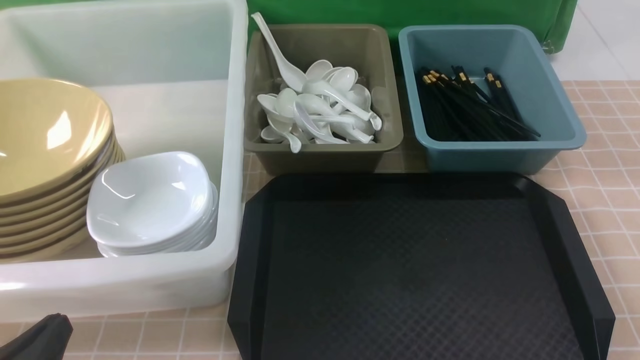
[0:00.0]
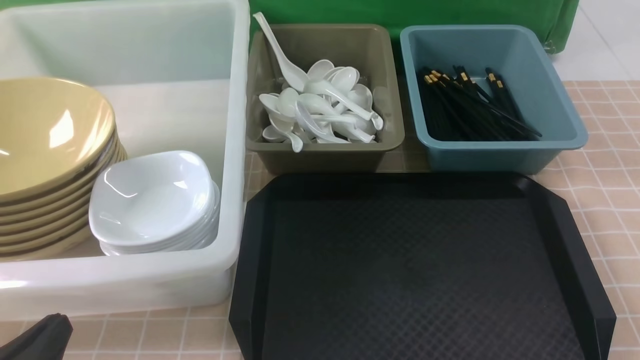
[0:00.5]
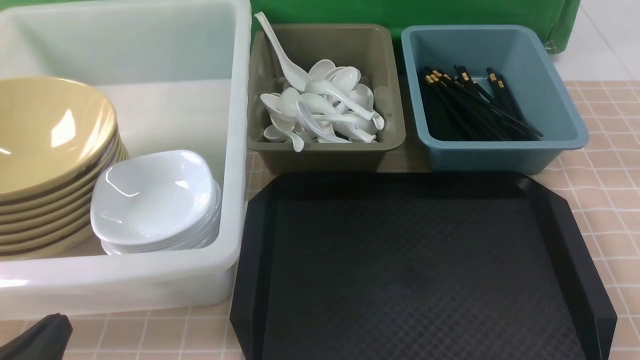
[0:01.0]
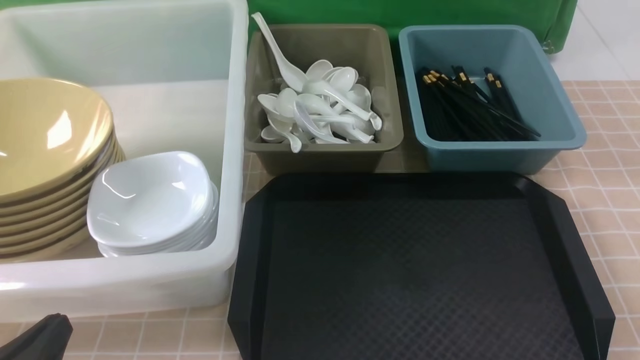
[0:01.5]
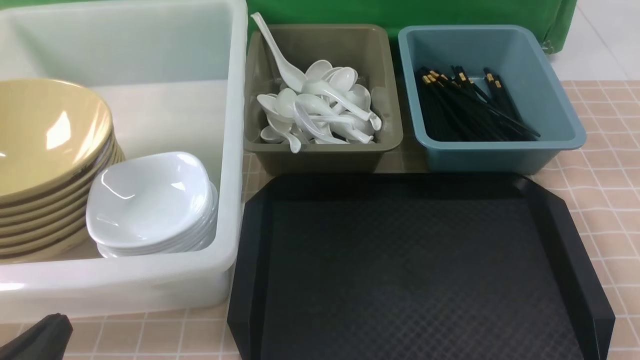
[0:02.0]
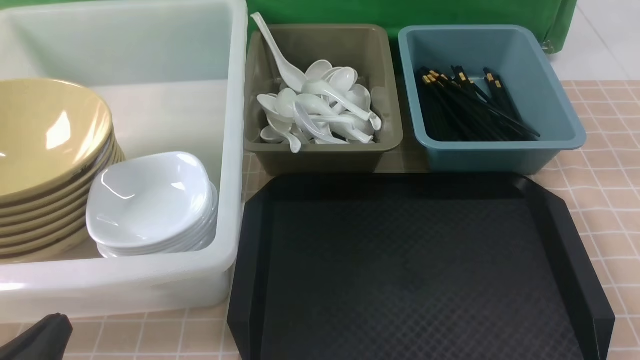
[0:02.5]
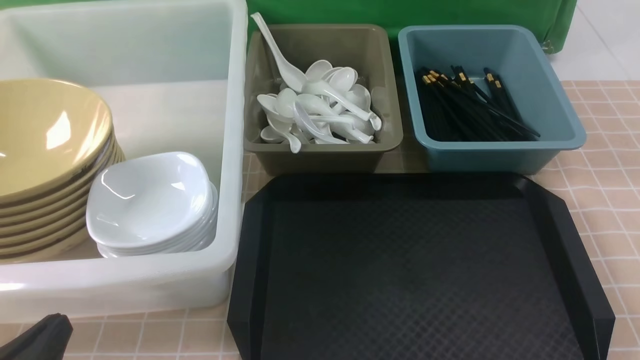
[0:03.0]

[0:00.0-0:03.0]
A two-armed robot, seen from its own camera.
Task of the whole recording: on brown table put chopsticks spoon bowls plates into blue grey white boxes.
0:00.0 to 0:03.0: Both grippers stay about where they are.
